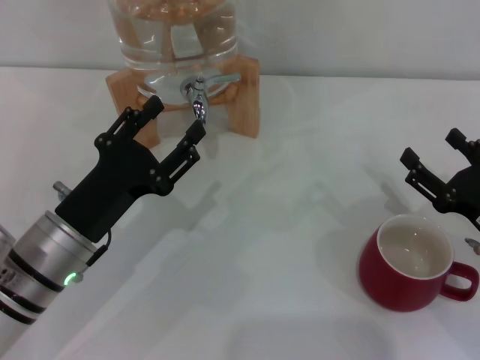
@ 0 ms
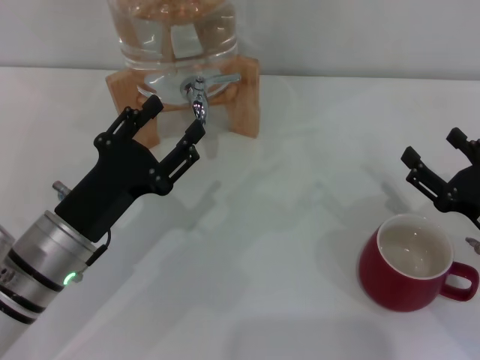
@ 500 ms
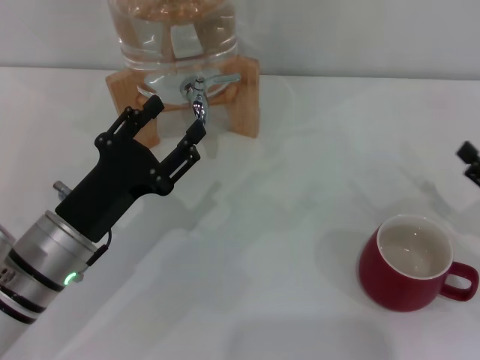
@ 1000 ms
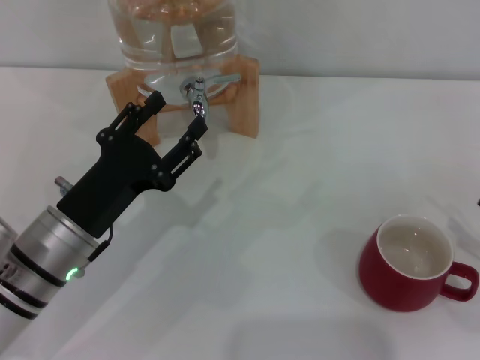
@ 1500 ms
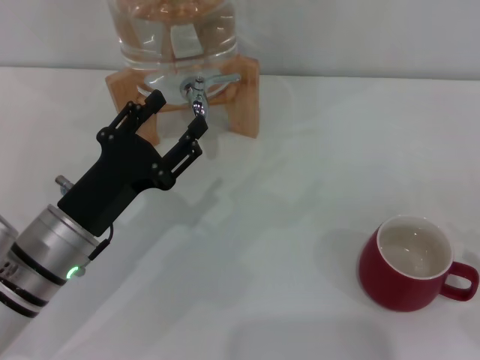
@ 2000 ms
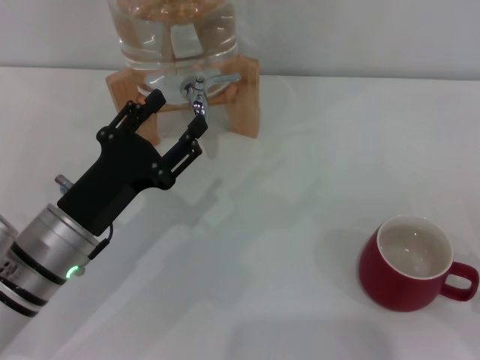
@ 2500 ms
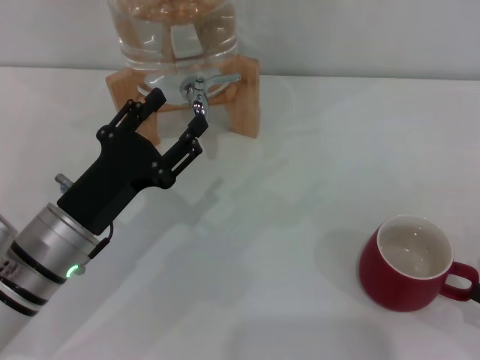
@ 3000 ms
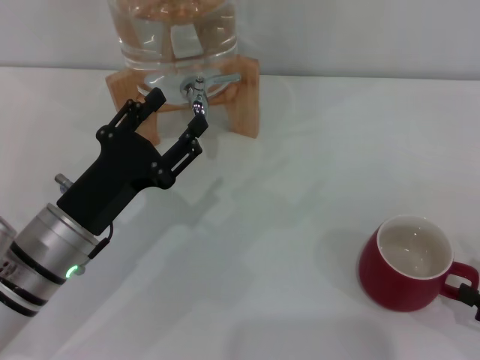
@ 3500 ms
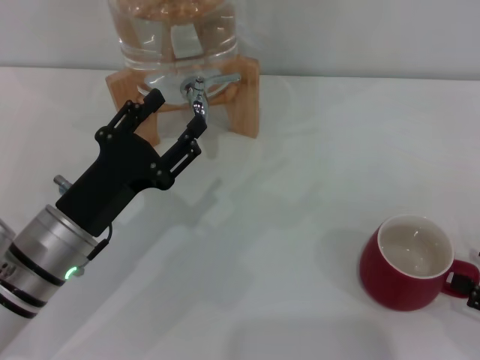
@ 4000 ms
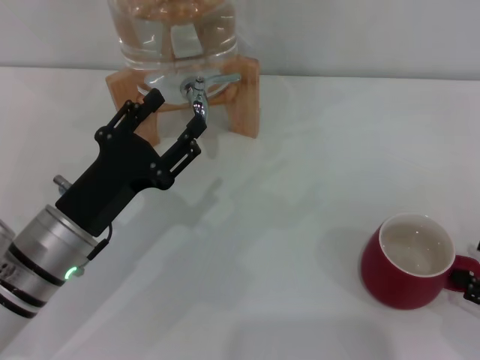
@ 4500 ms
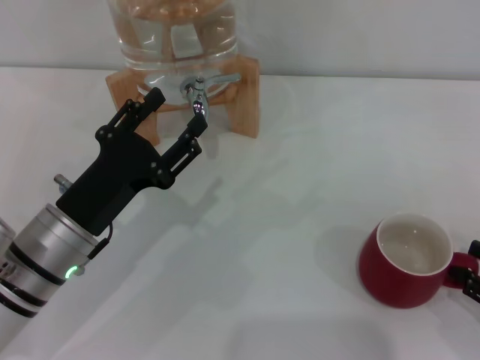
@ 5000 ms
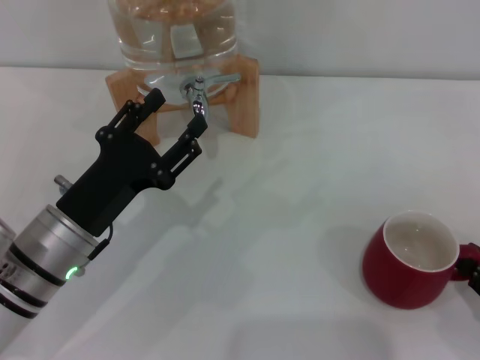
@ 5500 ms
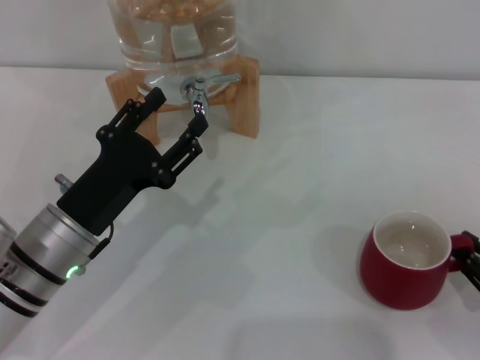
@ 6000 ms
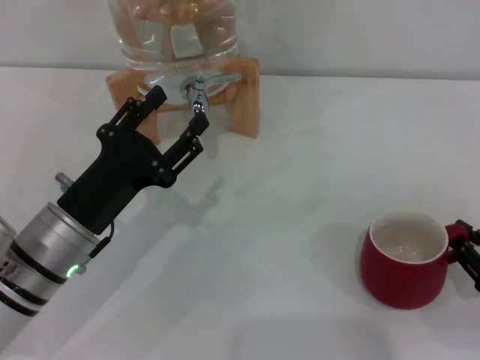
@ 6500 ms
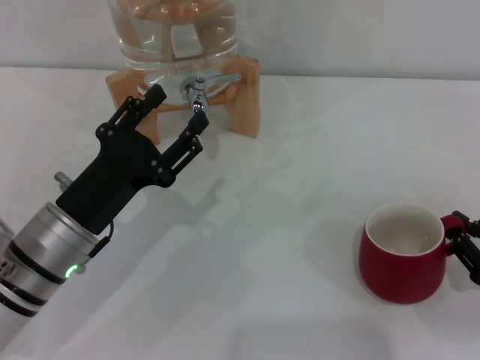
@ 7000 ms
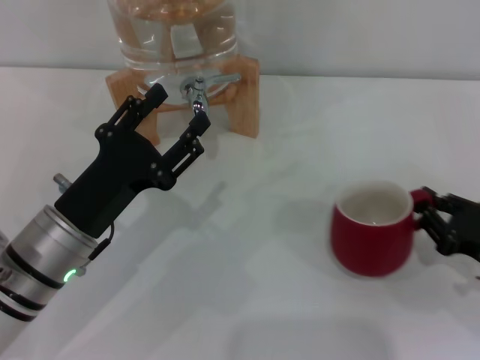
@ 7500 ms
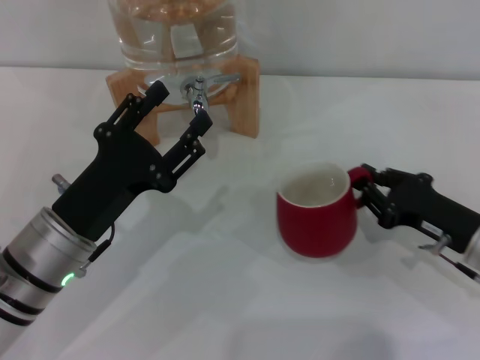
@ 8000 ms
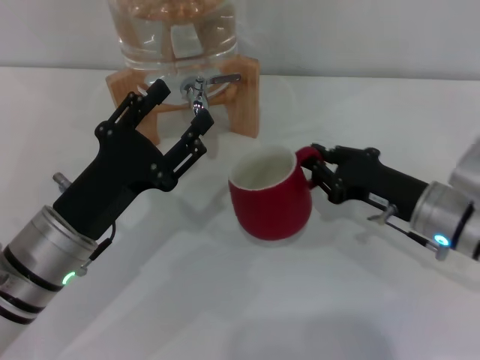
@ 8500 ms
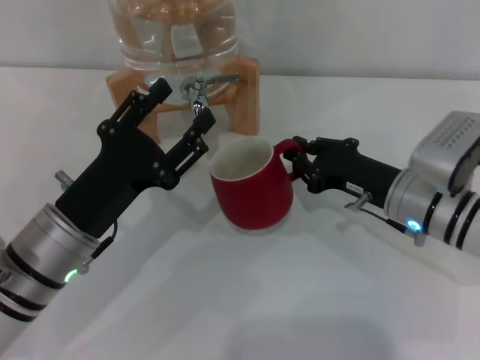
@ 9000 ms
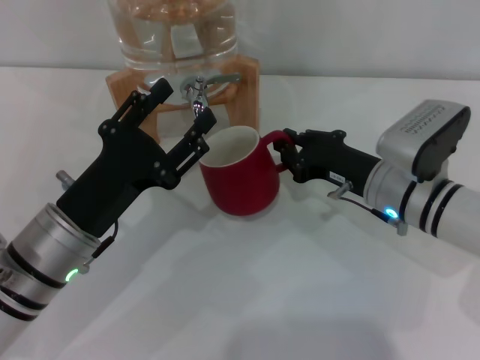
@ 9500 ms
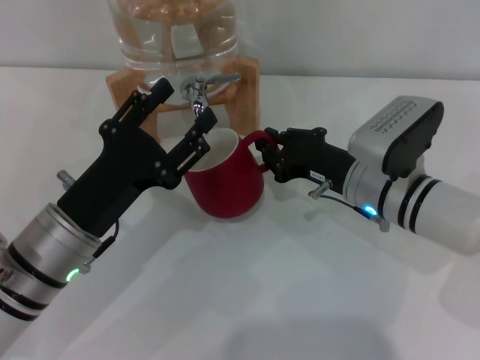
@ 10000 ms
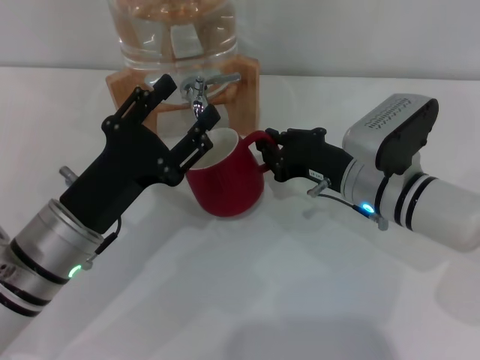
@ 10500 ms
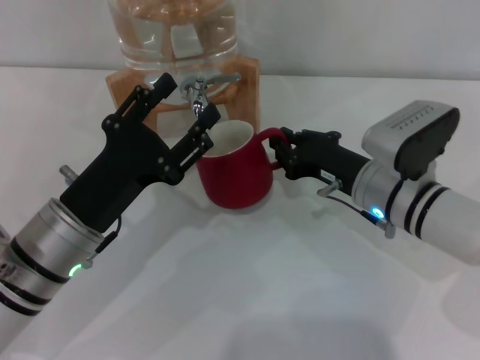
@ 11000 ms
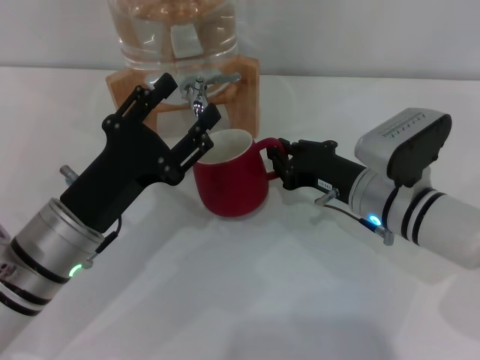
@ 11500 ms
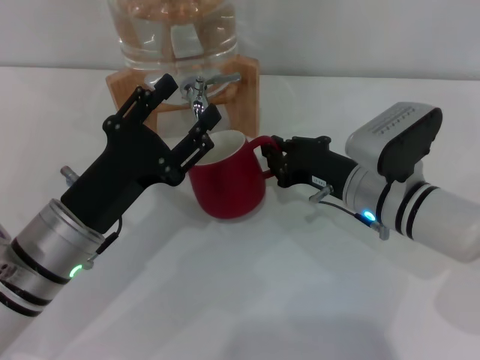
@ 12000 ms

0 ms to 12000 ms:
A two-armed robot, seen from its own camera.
Task of the whole recording: the right gripper pick up the red cup and place it horizontally under the faucet, the left gripper turn on the faucet to fill the cup, and then turn off the faucet.
0 ms to 2000 ms: The right gripper travels to the right and backward by about 15 cm.
2000 ms to 4000 ms: The grippers make only small movements.
4000 ms to 6000 ms: The right gripper closes up.
6000 ms to 8000 ms: The right gripper travels to the left and forward by some 15 cm.
8000 ms to 10000 ms: The right gripper goes some 15 cm to the left and forward.
10000 ms to 12000 ms: There are only small adjustments of the grippers.

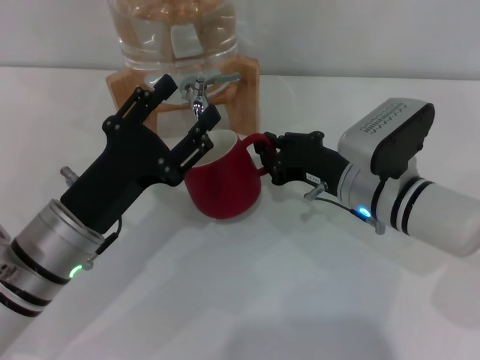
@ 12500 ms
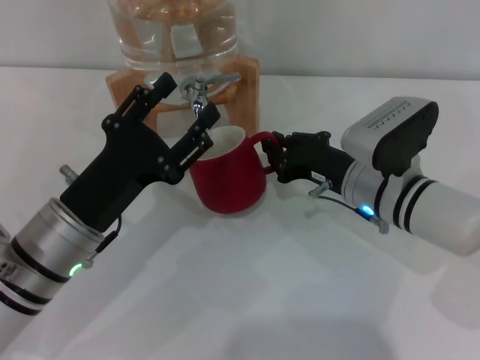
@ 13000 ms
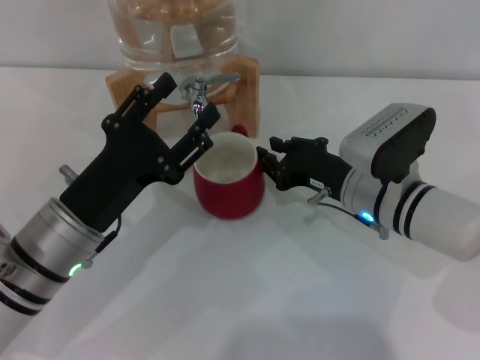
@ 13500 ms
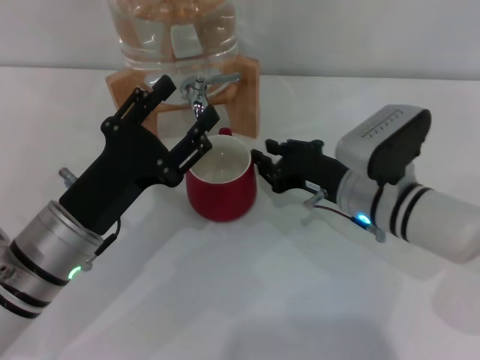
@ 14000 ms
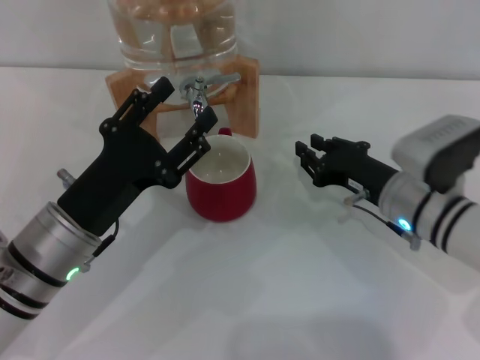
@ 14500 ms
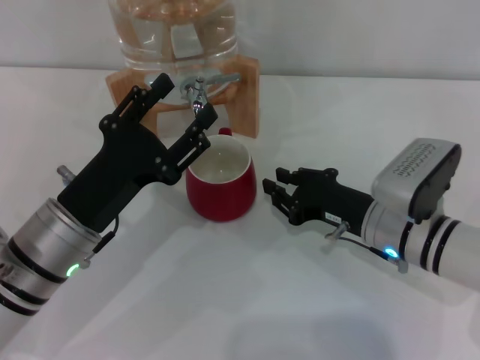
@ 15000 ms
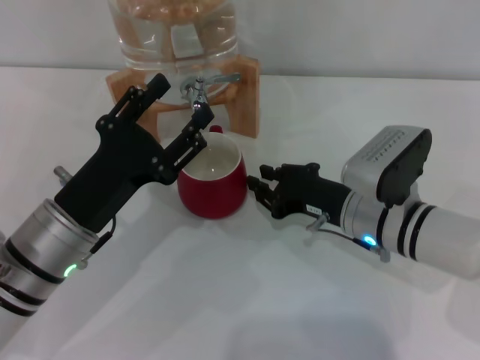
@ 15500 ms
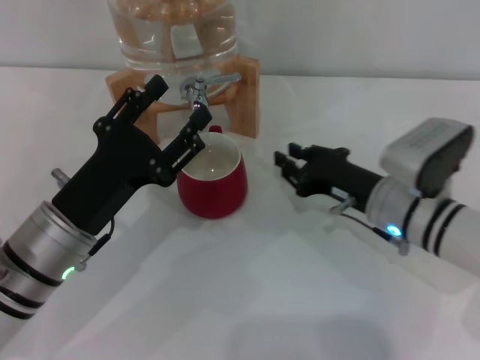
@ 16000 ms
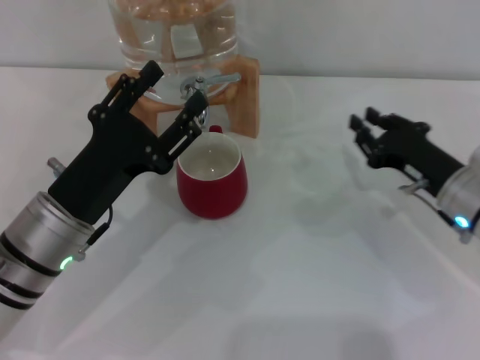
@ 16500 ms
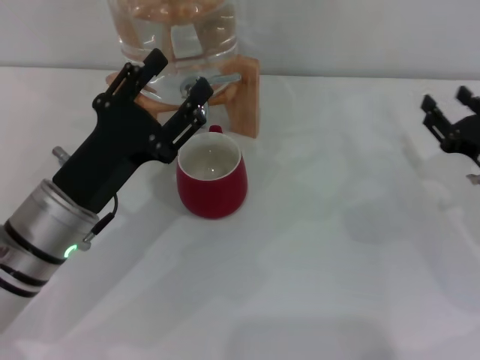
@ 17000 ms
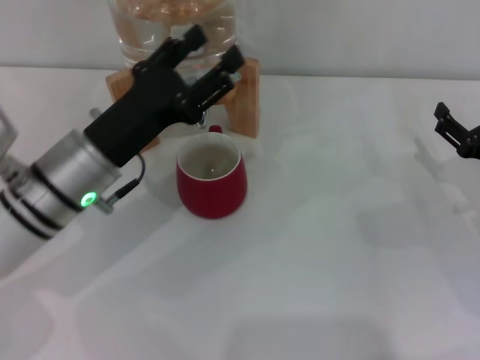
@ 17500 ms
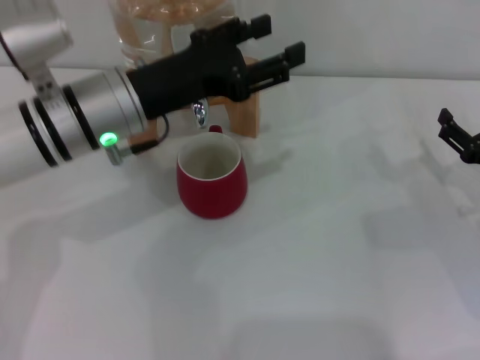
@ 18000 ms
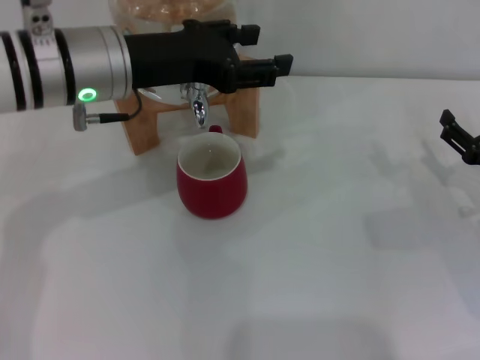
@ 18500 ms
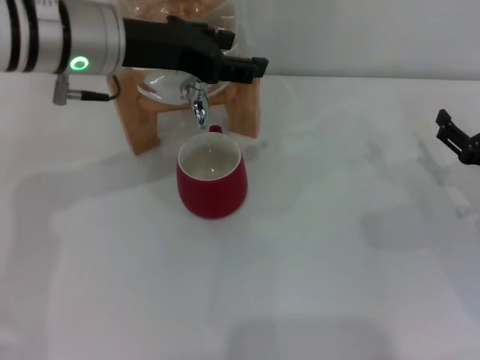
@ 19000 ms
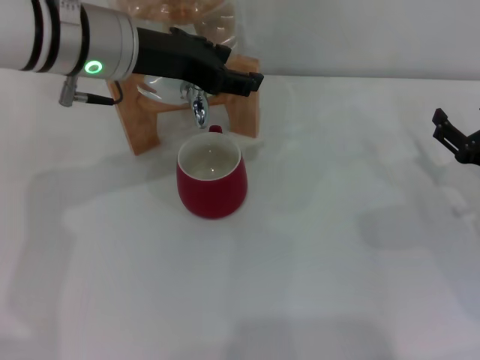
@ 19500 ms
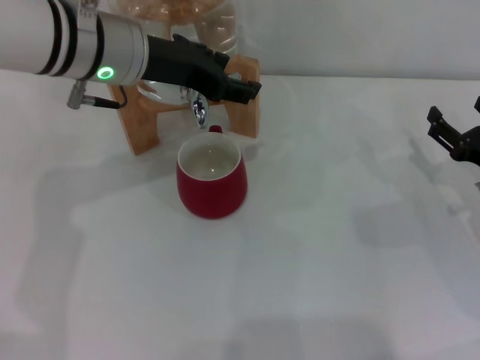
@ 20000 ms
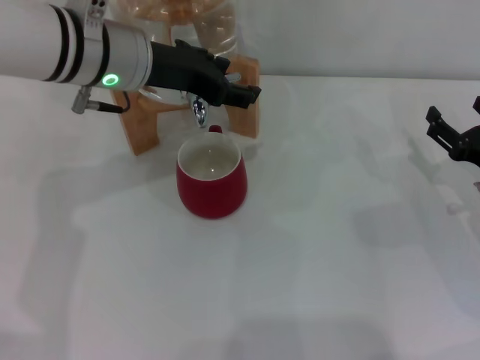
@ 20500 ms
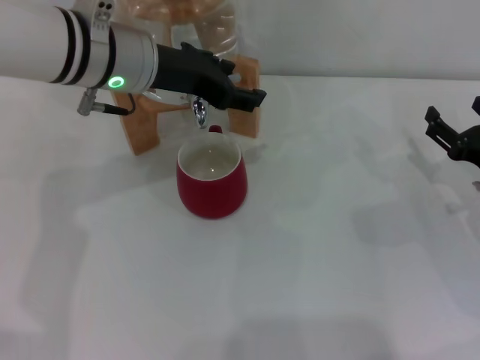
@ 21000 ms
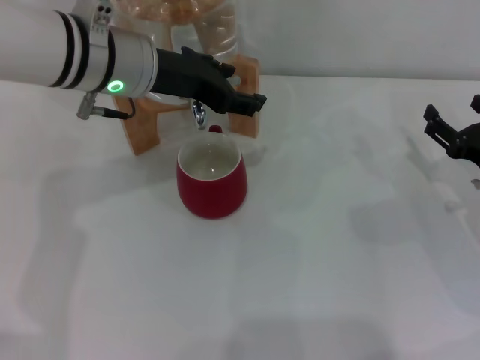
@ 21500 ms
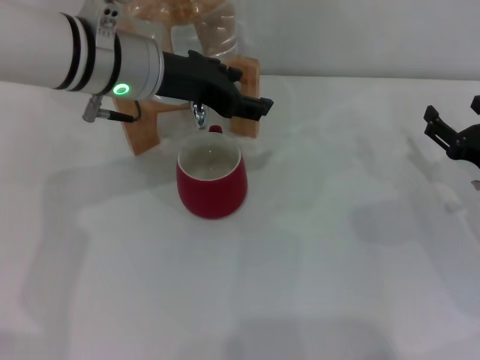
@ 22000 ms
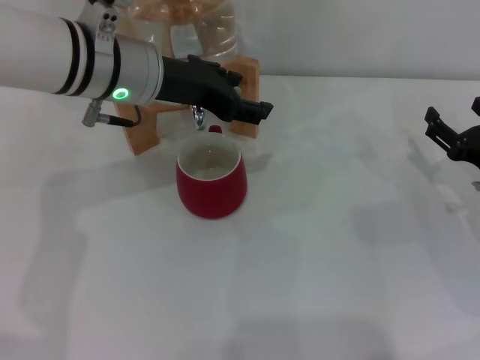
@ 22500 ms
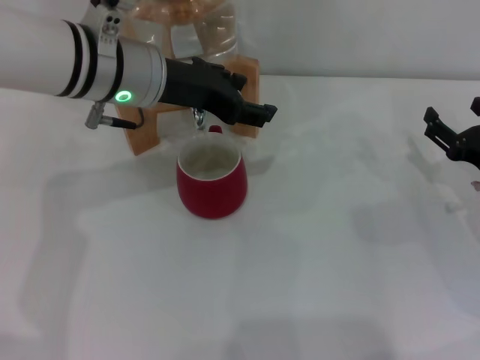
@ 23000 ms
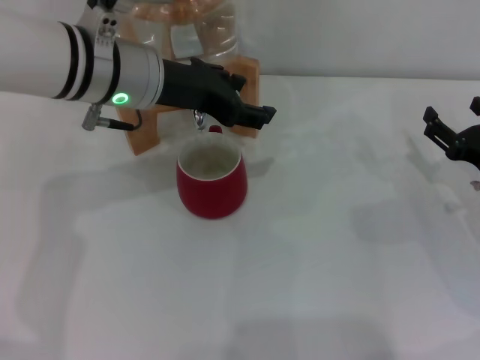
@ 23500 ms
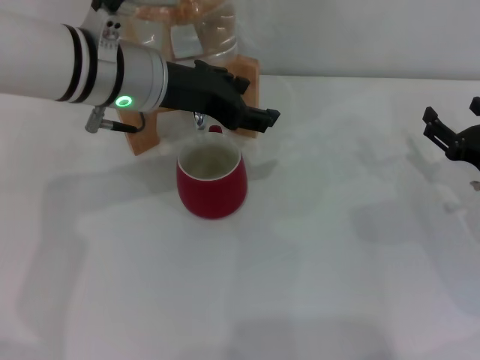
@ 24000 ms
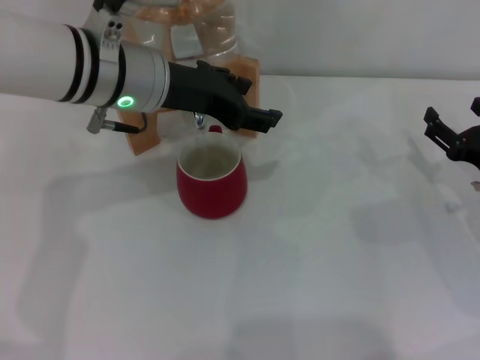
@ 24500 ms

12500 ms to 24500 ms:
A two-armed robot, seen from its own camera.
Task of the whole recording: the right gripper pick up the red cup and place it horizontally under the faucet, the left gripper turn on the faucet to fill the cup, and then turn off the faucet.
Step, 12500 ms to 14500 ms: Move the cup beneath the water dispenser nozzle with the right gripper.
12500 ms to 14500 ms: The grippers stay close to where they were, moving slightly.
14500 ms to 16500 ms: The right gripper shifts approximately 5 cm to the right.
16500 ms to 18500 ms: The left gripper moves upward and forward, about 15 cm, while the right gripper goes approximately 10 cm to the right, and opens.
20500 ms to 22500 ms: The two grippers keep their place.
22500 ms to 24500 ms: The two grippers keep their place.

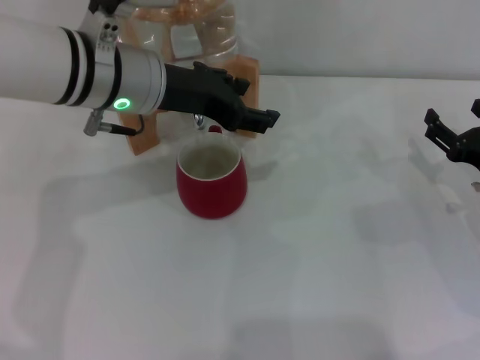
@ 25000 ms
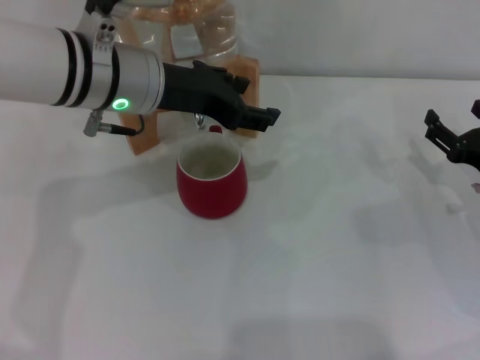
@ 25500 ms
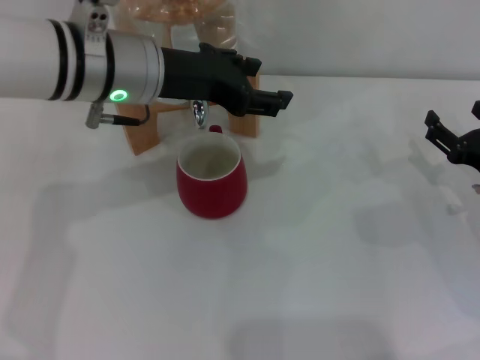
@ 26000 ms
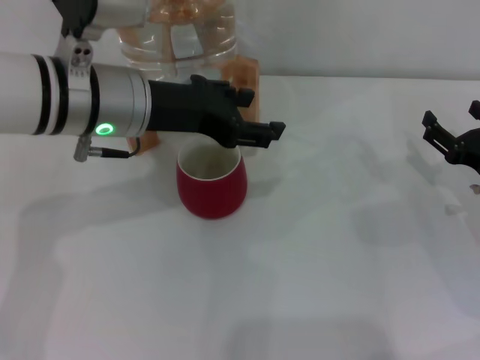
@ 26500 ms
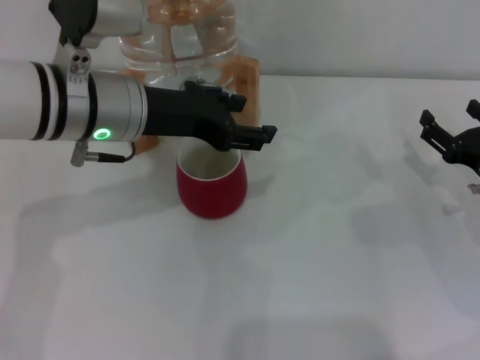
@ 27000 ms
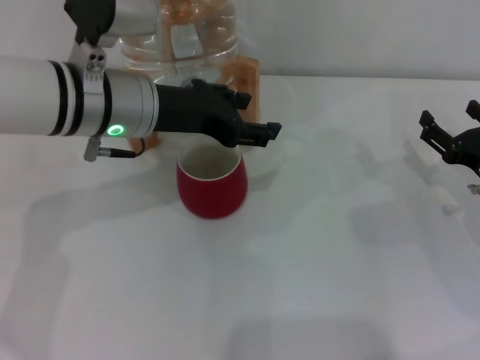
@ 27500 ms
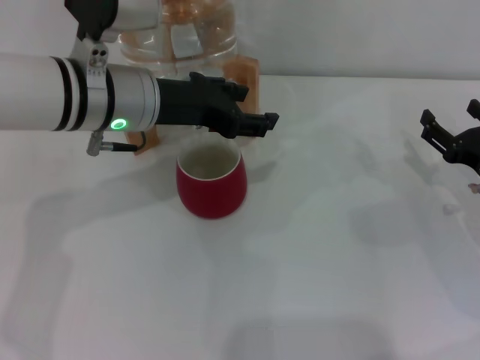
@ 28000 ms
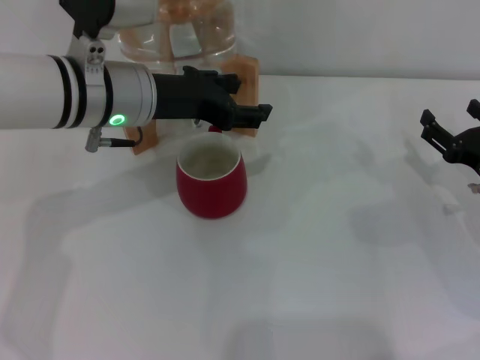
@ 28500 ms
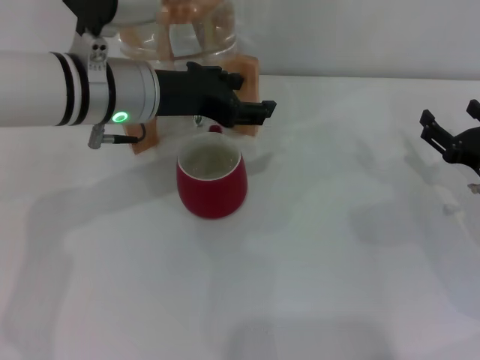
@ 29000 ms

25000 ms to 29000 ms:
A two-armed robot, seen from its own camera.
Task of the whole recording: the right gripper pick up the red cup and place it horizontally under the faucet, the left gripper turn on the faucet to fill the cup, and then turn off the faucet.
25000 ms to 29000 ms: There are only small adjustments of the grippers.
